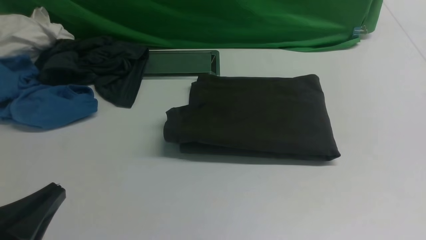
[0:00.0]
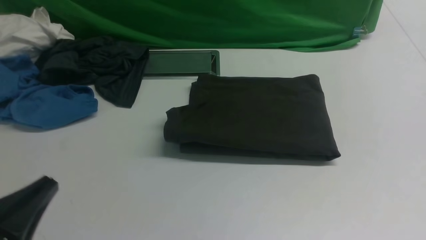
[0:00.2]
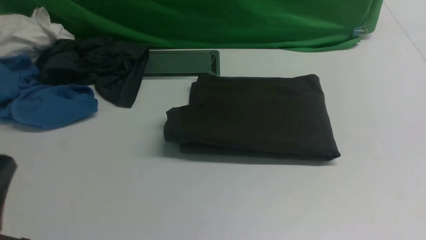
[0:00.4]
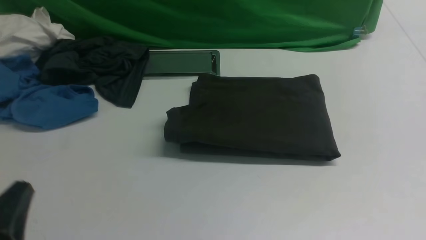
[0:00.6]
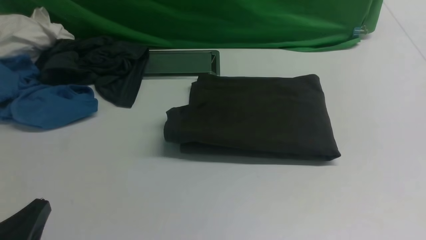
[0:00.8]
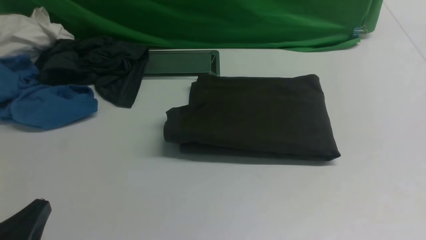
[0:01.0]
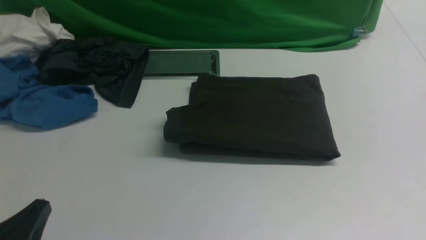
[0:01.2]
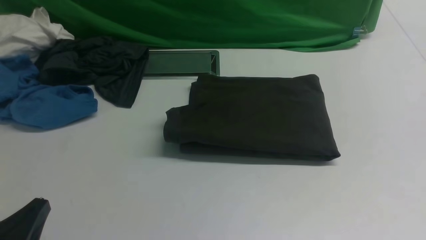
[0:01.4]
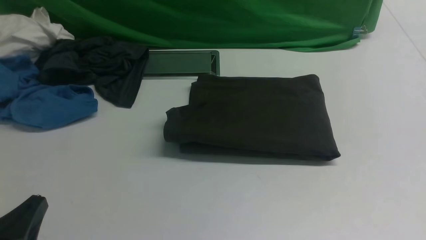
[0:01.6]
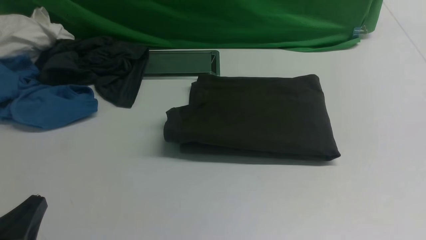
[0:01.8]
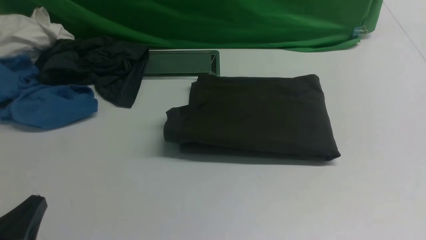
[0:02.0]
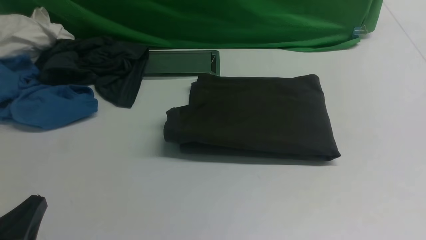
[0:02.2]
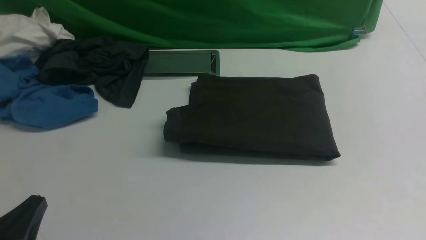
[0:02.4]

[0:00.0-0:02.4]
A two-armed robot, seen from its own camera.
0:00.0 to 0:01.2: The left gripper heads downward, covering roughly 5 cm.
0:01.2 to 0:02.4: Neither gripper changes place.

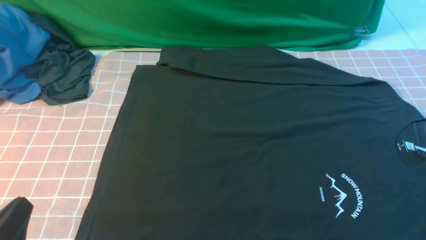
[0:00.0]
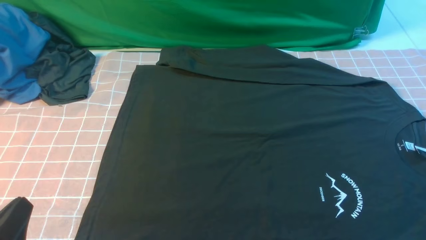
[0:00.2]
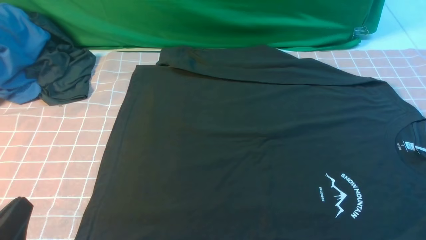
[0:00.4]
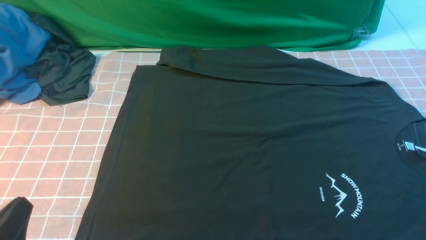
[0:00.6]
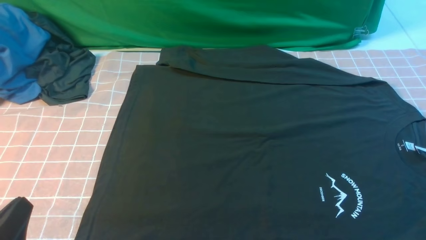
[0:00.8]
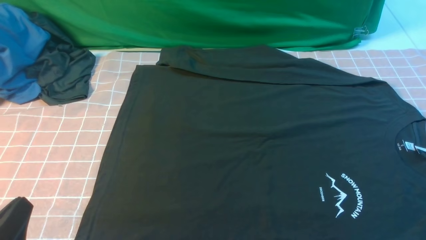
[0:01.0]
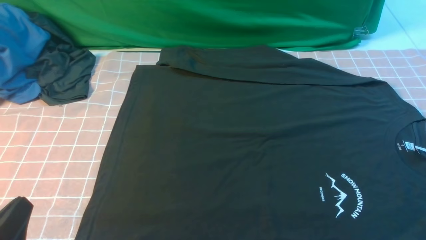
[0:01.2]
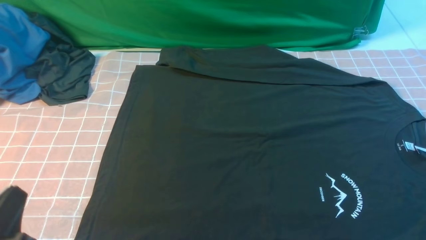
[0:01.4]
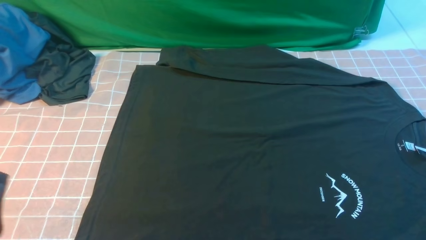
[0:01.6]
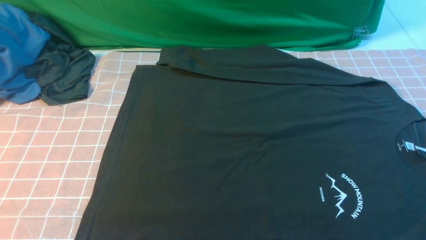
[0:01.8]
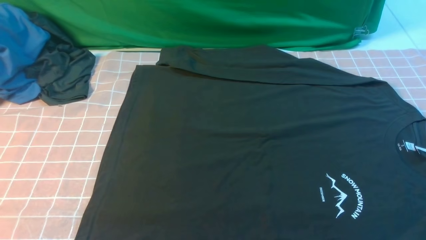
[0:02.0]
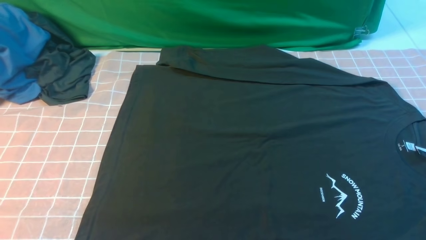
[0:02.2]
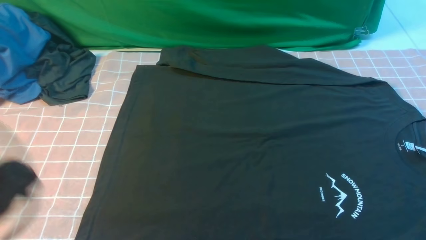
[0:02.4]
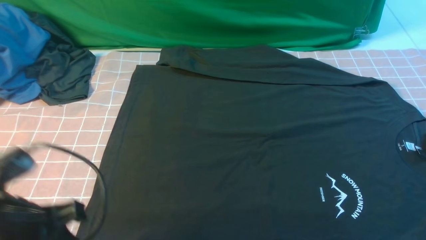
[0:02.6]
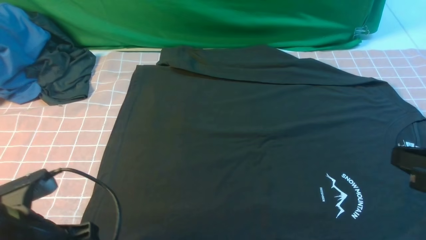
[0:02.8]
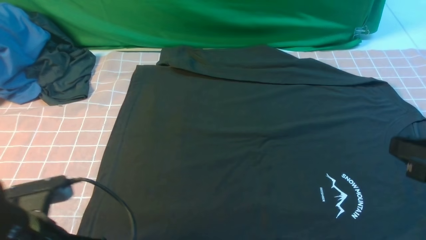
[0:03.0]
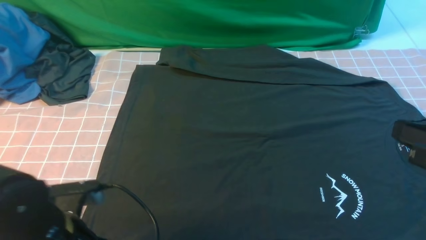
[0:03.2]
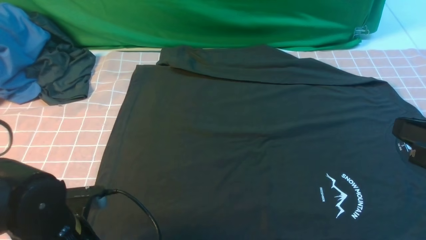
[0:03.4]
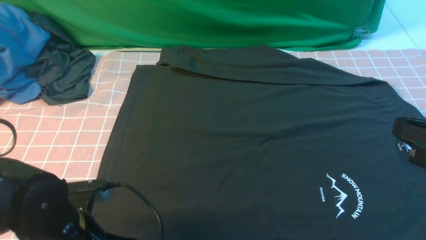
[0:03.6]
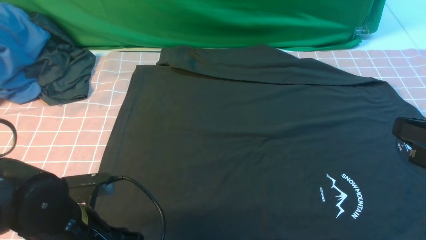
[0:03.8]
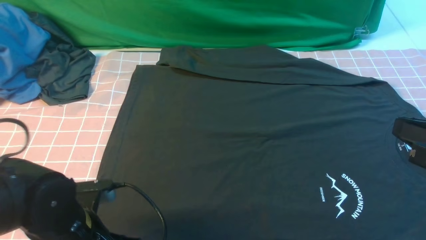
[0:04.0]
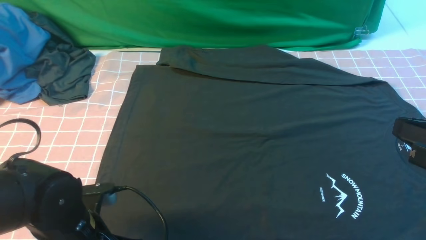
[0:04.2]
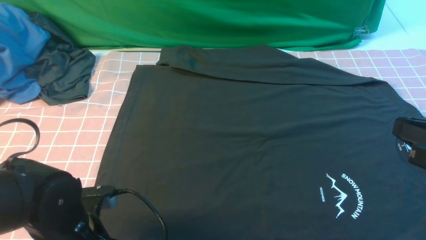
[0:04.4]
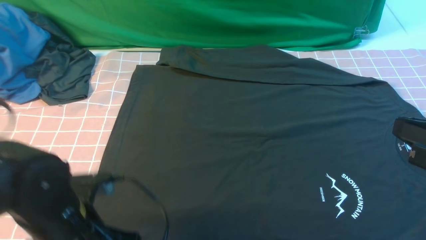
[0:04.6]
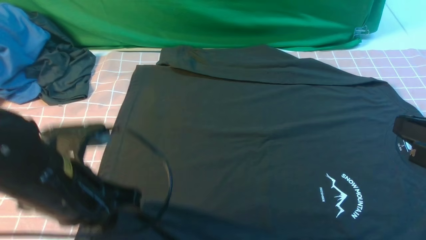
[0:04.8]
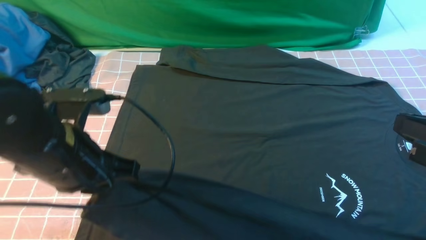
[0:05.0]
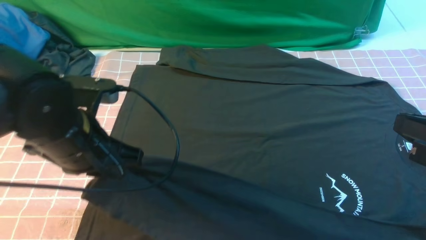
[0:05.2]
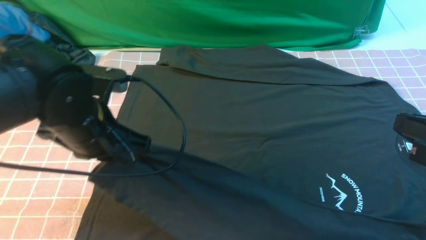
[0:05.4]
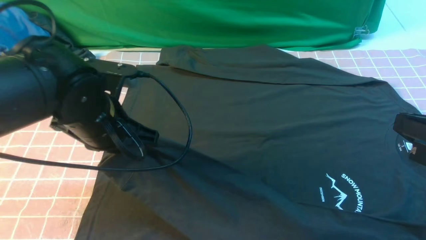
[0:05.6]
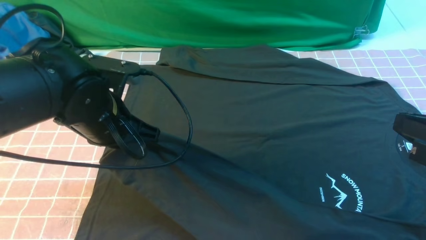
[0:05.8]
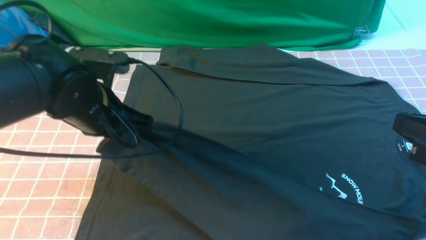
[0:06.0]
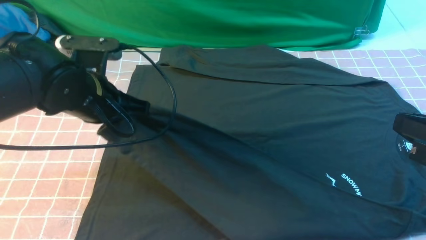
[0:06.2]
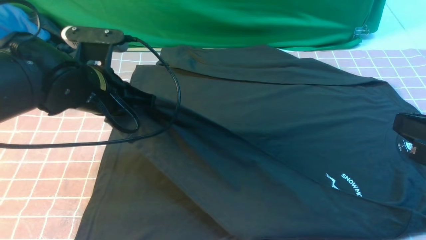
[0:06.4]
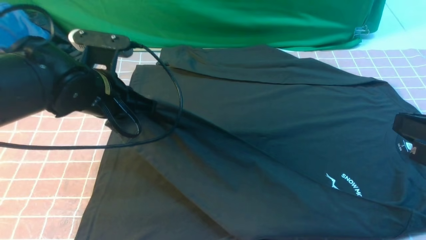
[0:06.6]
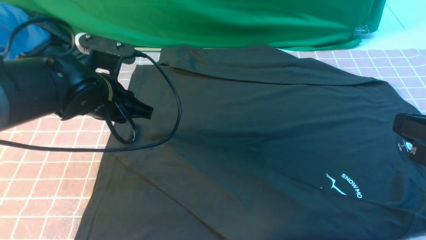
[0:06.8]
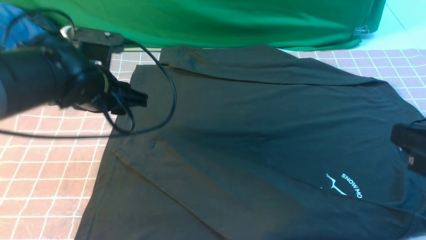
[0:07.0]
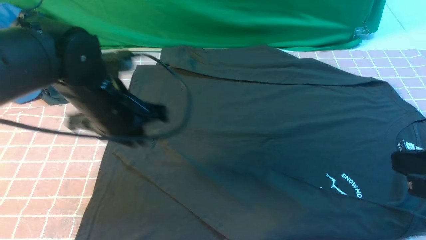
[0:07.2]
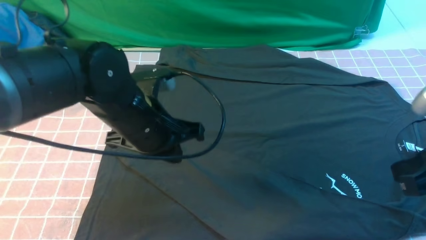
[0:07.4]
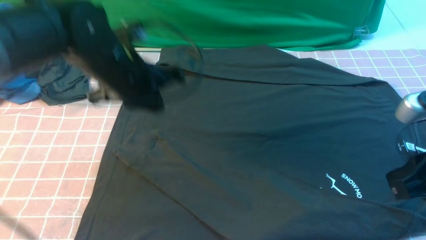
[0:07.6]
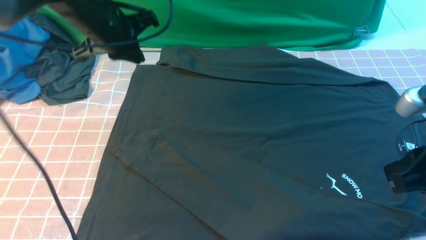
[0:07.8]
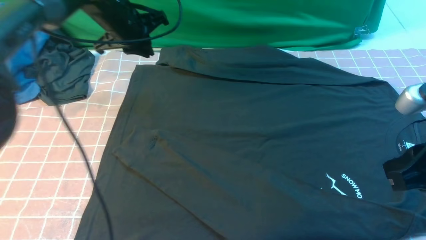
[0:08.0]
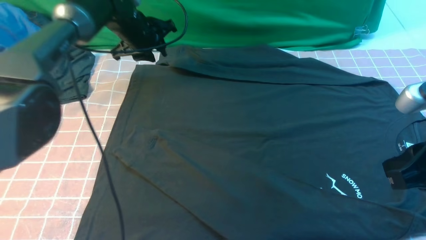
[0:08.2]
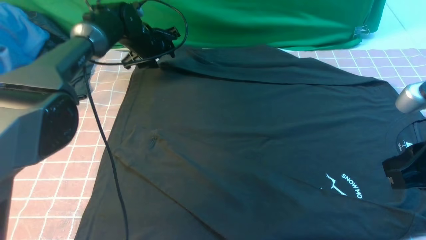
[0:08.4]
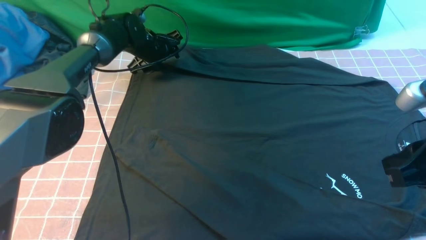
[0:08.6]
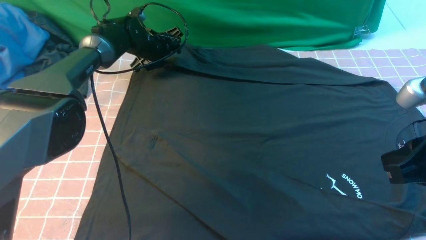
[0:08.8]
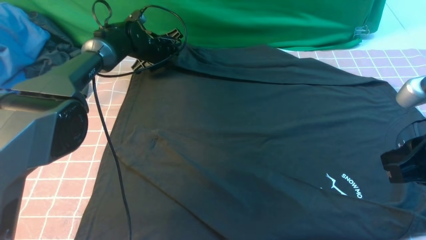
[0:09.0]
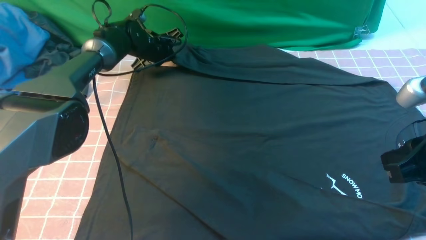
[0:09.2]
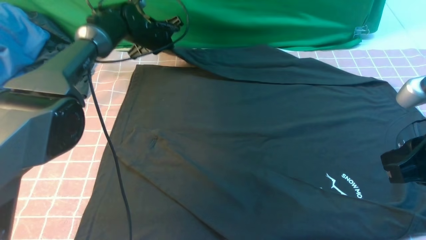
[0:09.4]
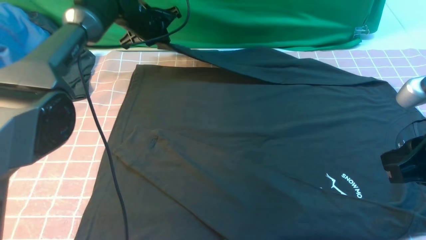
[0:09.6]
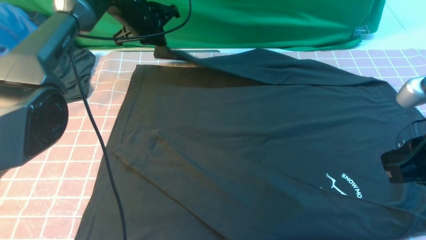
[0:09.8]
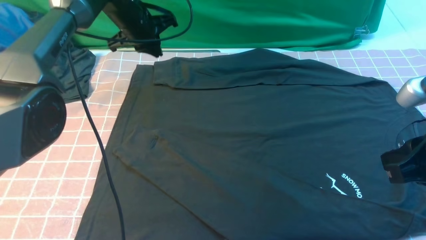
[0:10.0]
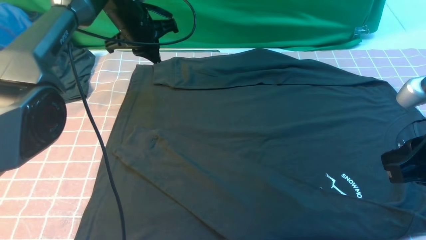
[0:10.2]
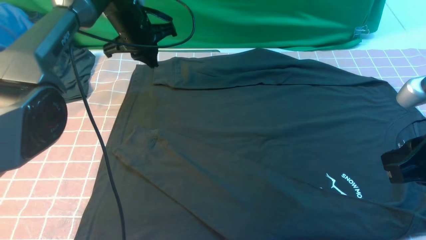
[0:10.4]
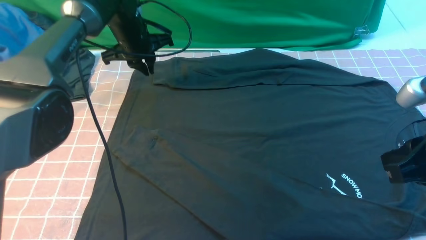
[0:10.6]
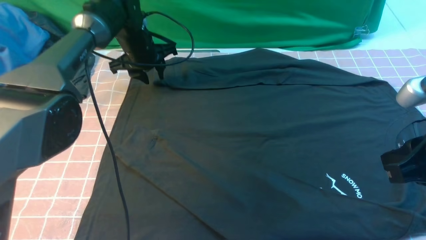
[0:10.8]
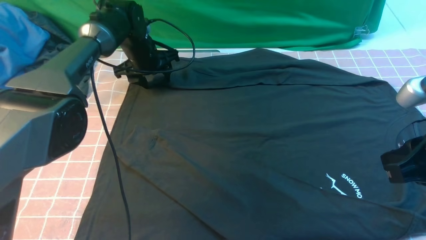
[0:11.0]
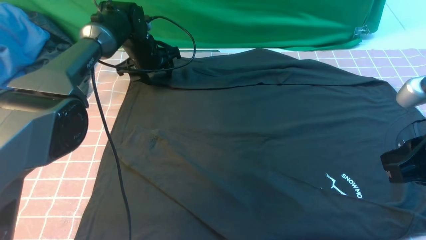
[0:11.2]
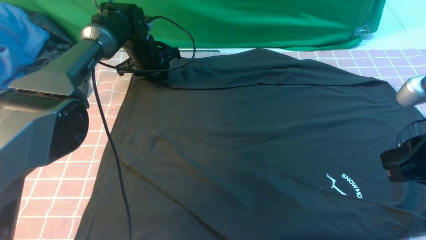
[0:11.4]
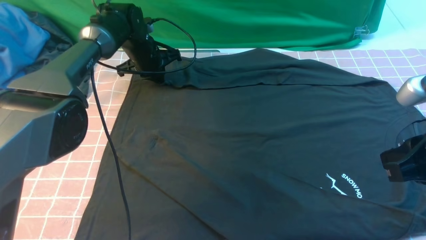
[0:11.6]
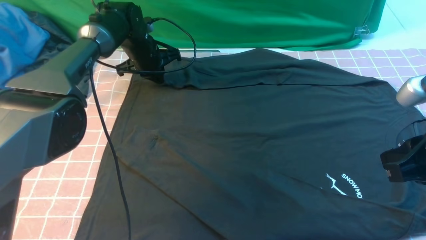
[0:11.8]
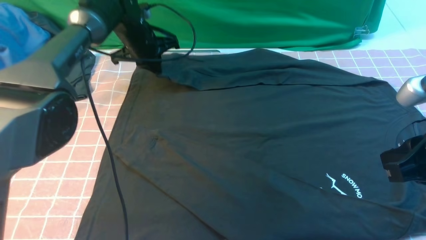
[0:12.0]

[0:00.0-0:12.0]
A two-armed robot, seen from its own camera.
Step, 0:00.0 to 0:04.4: use the left arm to clamp the cuff closest to it.
Step, 0:04.6 to 0:06.8: use the left arm to drag and place the cuff at the centered position on the left edge of the fabric.
Step, 0:07.0 to 0:09.0: use the left arm to clamp the cuff farthest from it.
0:01.6 to 0:03.0: The right gripper travels upward and forward by about 10 cm, and closes. Meanwhile the left gripper goes roughly 10 cm forward and to the right, and moves approximately 10 cm upward and comes back.
0:03.0 to 0:04.4: The left gripper opens and closes again.
0:04.4 to 0:06.0: The left gripper is displaced forward and upward by roughly 15 cm.
0:06.0 to 0:07.6: The left gripper is displaced forward by roughly 5 cm, and opens, then closes again.
0:07.6 to 0:09.0: The left gripper goes about 25 cm forward and downward, and opens.
0:09.0 to 0:10.4: The left gripper travels upward and backward by approximately 10 cm, and closes its fingers.
0:10.4 to 0:12.0: The left gripper opens, then closes once more.

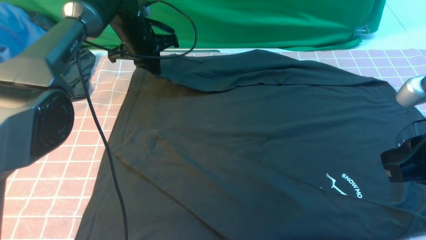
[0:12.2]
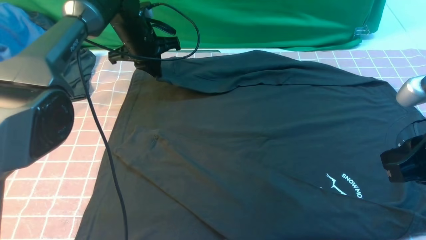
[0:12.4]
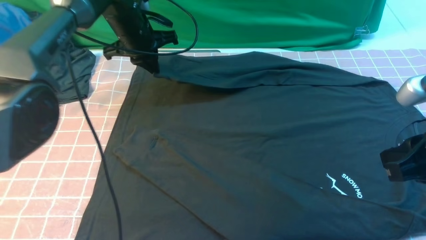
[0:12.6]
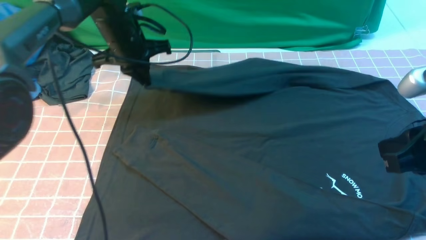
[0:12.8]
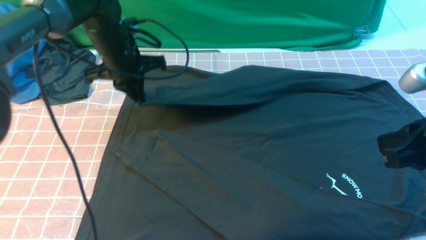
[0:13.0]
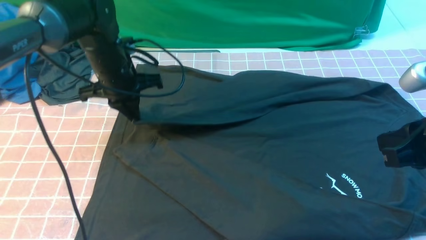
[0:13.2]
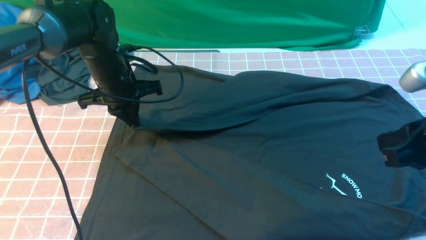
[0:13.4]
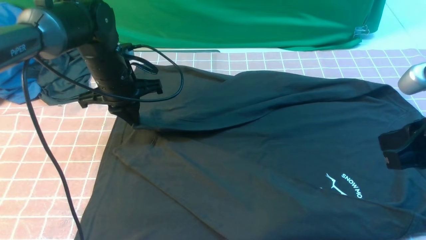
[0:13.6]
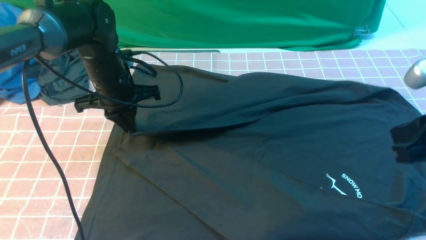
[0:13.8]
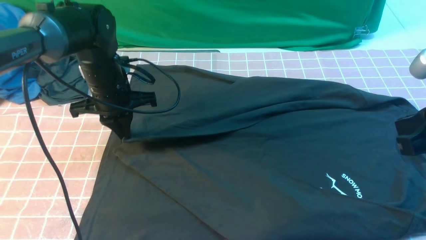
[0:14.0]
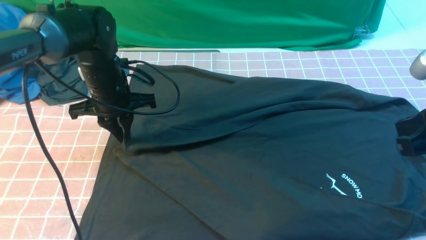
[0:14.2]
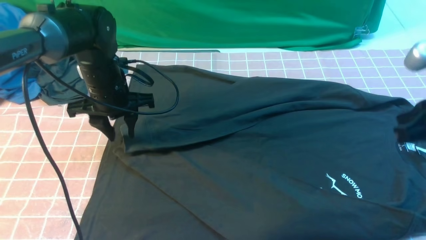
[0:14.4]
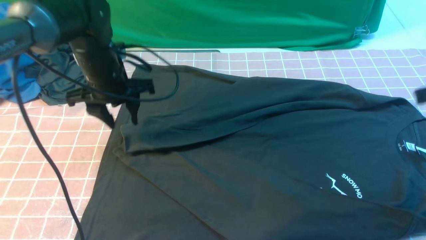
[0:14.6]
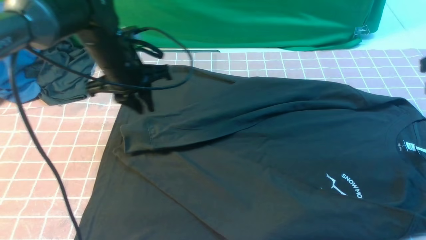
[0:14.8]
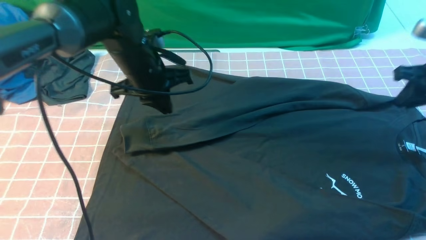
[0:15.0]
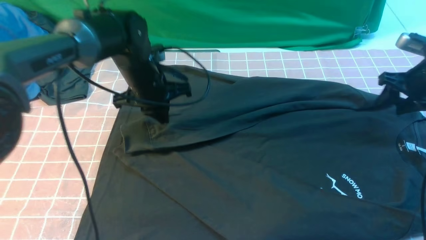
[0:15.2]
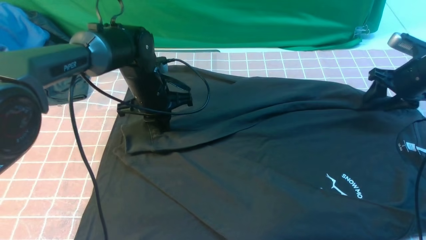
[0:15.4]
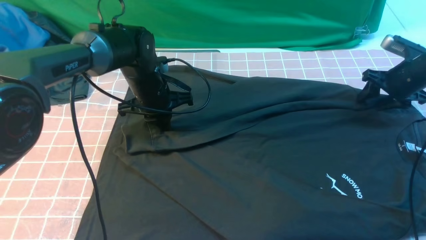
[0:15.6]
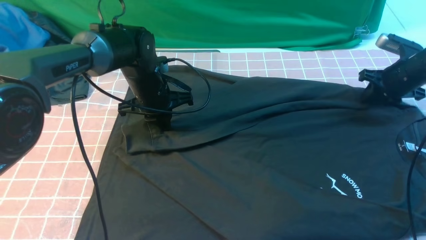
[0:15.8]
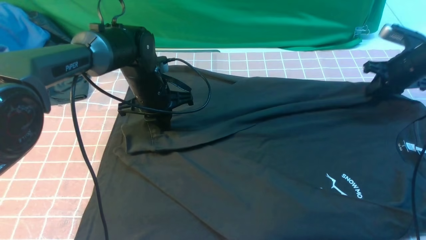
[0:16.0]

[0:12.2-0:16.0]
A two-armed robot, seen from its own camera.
Step, 0:12.2 to 0:14.2: use the left arm to drag and drop the cuff onto the cuff closest to the left arm.
0:12.2 to 0:13.4: The left gripper heads backward, covering about 10 cm.
0:13.4 to 0:14.8: The right gripper travels forward and to the right by about 15 cm.
0:14.8 to 0:16.0: The left gripper shifts roughly 10 cm downward, and closes up, while the right gripper goes some 15 cm forward and downward, and opens, then closes again.
